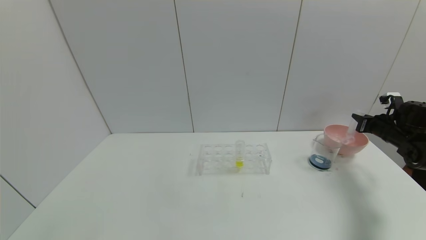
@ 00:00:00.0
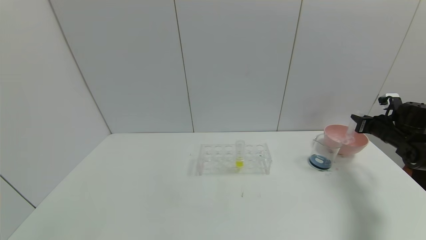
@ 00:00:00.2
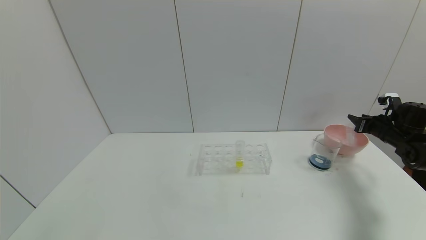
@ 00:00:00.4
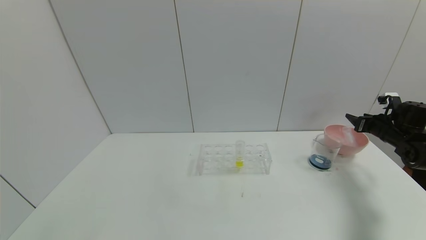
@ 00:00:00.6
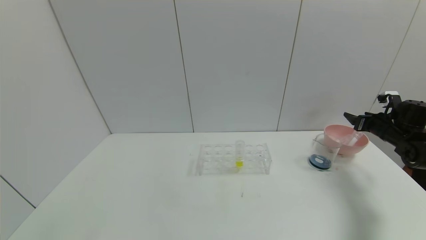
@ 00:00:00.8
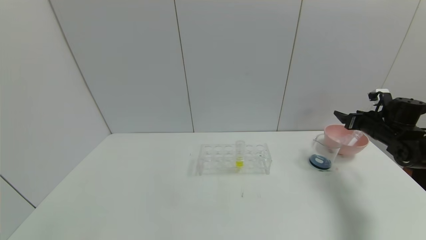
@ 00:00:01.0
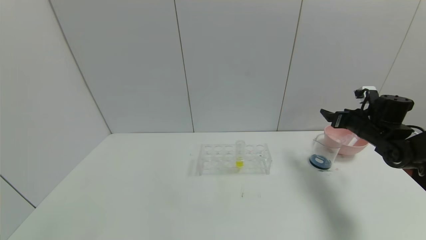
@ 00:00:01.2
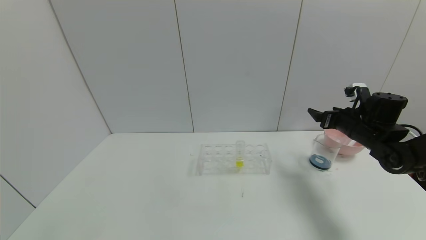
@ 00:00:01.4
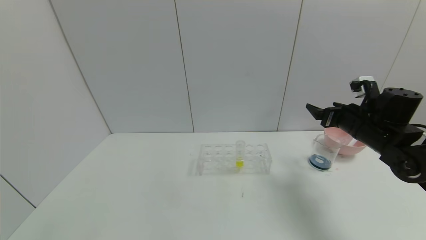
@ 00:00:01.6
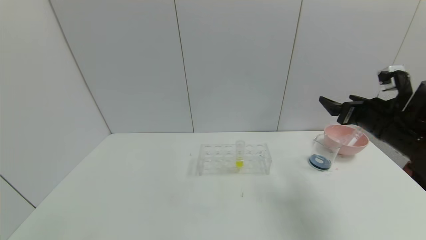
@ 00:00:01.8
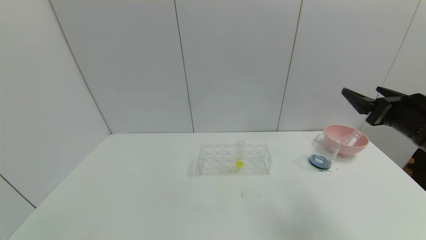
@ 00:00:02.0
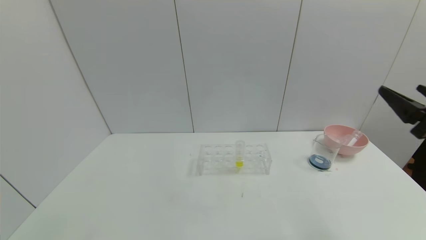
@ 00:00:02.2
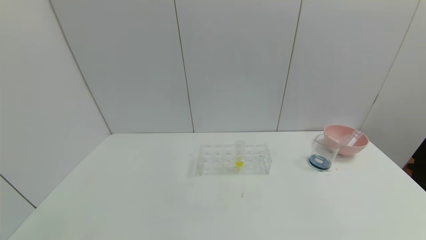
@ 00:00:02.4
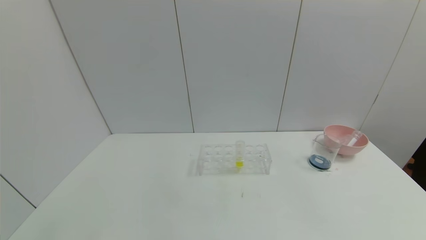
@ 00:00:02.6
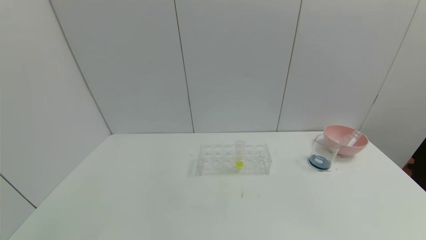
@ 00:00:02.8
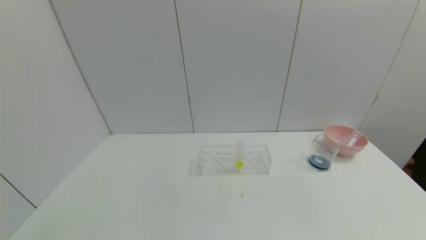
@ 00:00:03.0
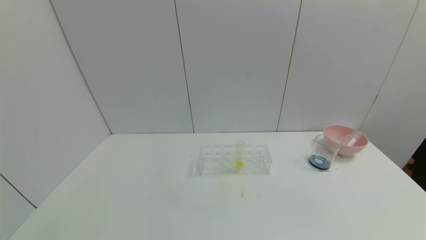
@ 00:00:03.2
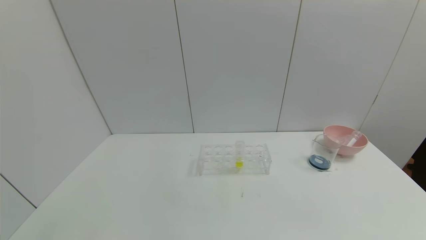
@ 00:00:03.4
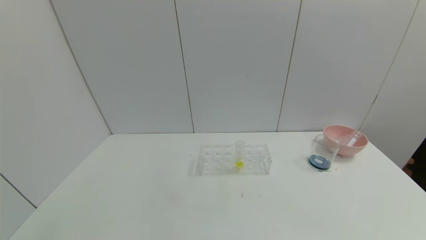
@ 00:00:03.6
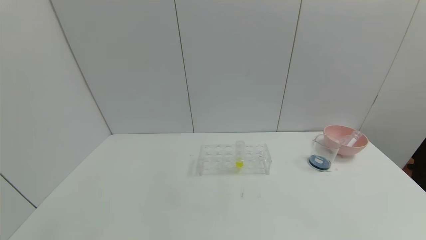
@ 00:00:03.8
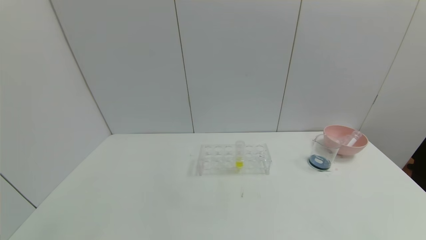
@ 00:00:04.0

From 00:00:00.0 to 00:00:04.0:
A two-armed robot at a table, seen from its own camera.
Task of the whole recording: pick up the test tube with red pigment and the test tube with blue pigment by grippers and pour them into the container.
From 00:00:00.0 to 00:00:01.4: The right gripper shifts some 15 cm to the left, and opens up.
From 00:00:01.4 to 00:00:02.6: The right gripper heads backward, covering approximately 35 cm.
